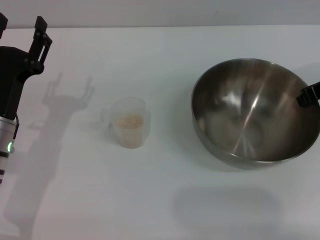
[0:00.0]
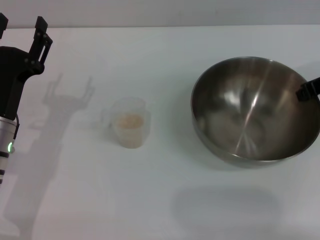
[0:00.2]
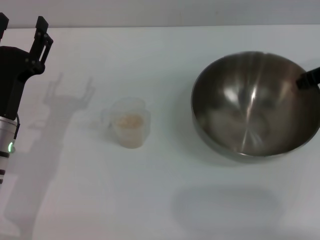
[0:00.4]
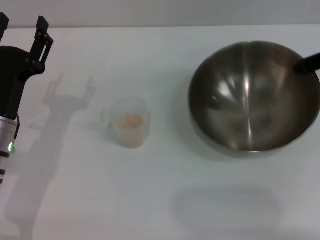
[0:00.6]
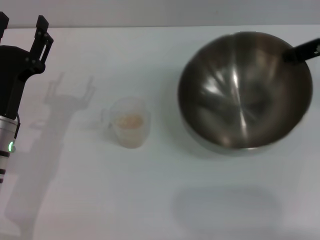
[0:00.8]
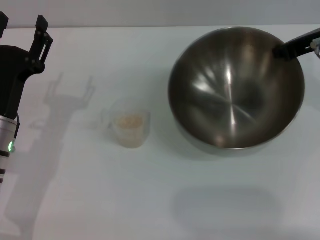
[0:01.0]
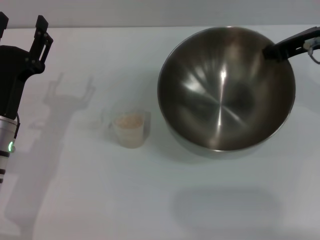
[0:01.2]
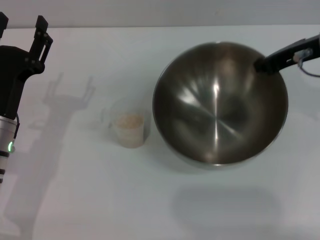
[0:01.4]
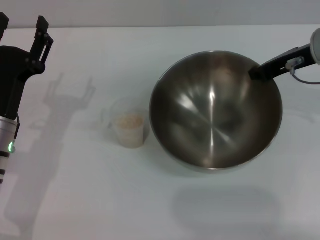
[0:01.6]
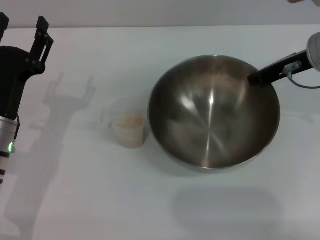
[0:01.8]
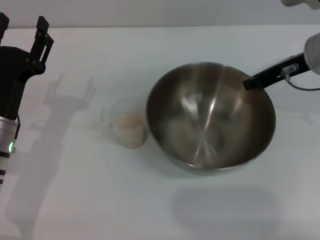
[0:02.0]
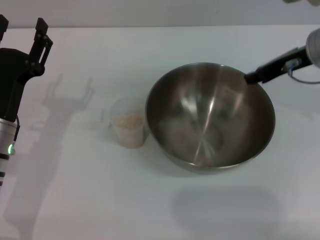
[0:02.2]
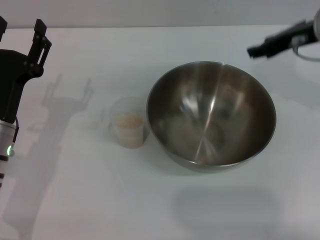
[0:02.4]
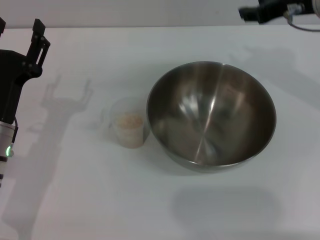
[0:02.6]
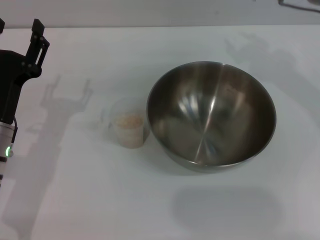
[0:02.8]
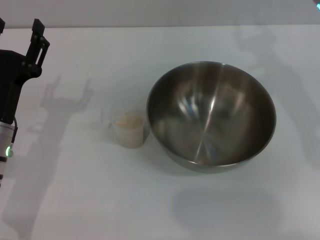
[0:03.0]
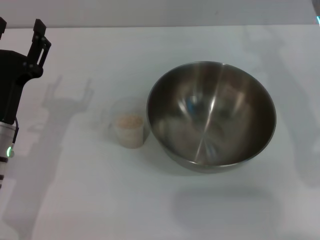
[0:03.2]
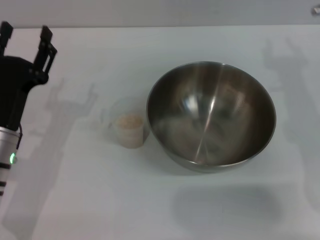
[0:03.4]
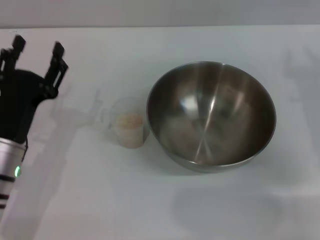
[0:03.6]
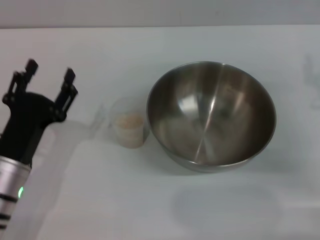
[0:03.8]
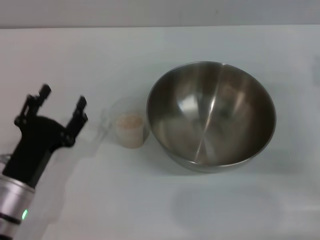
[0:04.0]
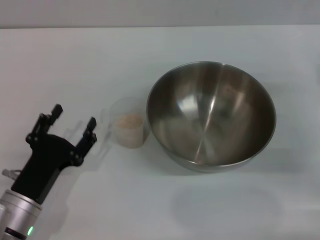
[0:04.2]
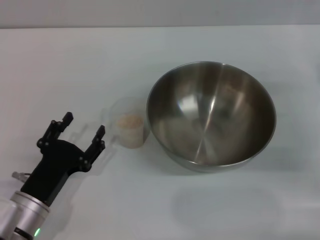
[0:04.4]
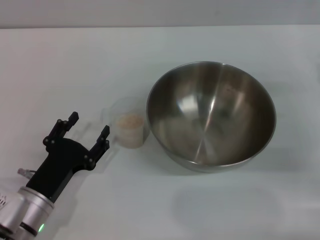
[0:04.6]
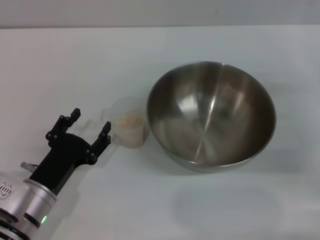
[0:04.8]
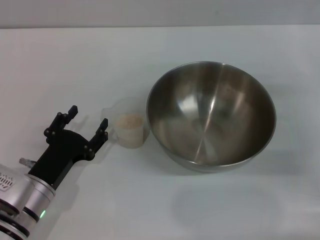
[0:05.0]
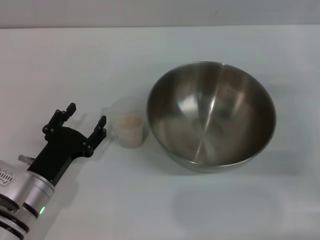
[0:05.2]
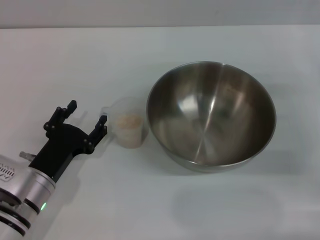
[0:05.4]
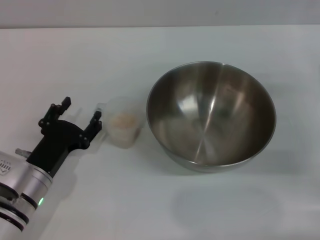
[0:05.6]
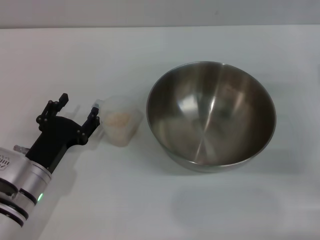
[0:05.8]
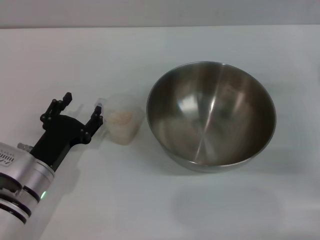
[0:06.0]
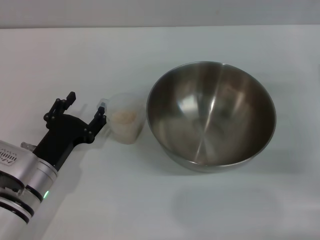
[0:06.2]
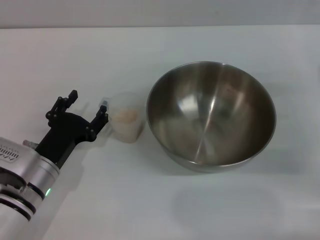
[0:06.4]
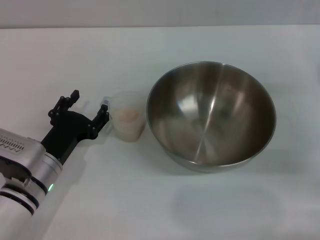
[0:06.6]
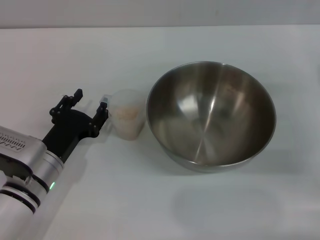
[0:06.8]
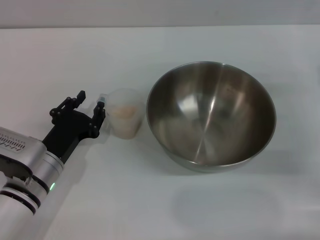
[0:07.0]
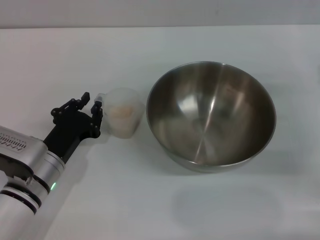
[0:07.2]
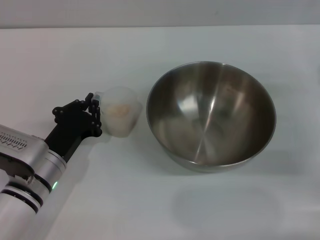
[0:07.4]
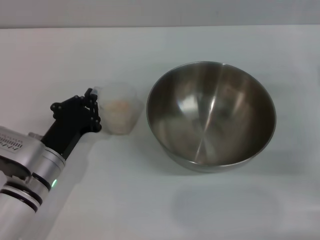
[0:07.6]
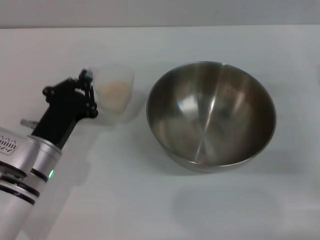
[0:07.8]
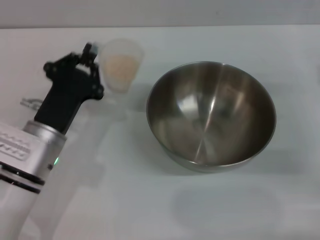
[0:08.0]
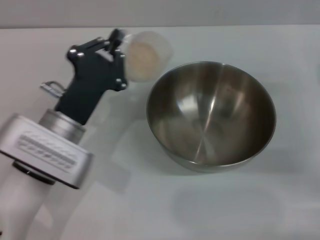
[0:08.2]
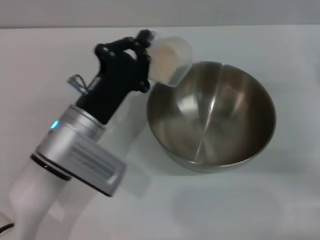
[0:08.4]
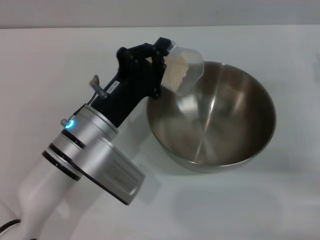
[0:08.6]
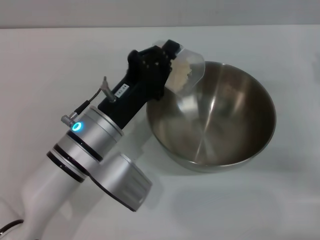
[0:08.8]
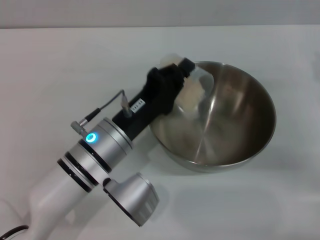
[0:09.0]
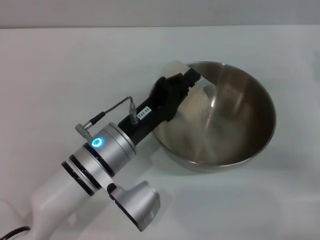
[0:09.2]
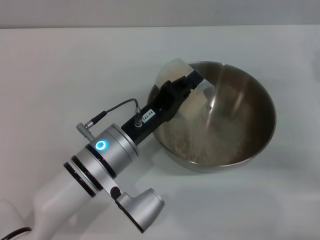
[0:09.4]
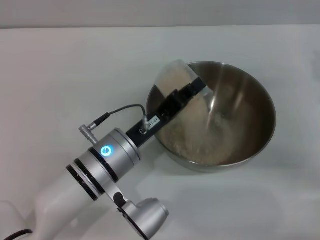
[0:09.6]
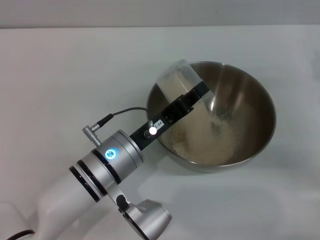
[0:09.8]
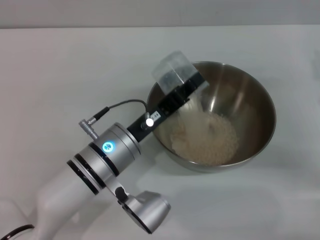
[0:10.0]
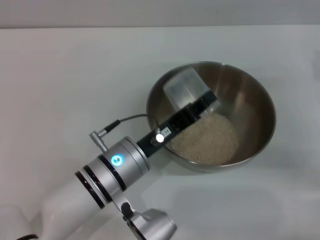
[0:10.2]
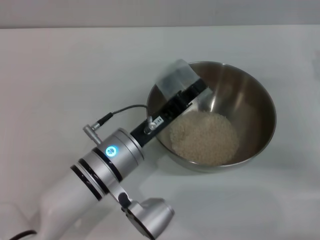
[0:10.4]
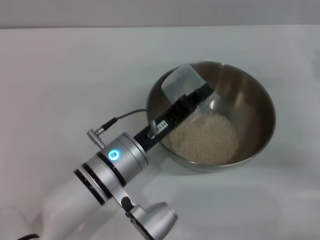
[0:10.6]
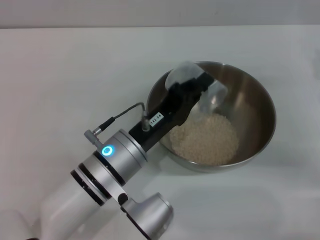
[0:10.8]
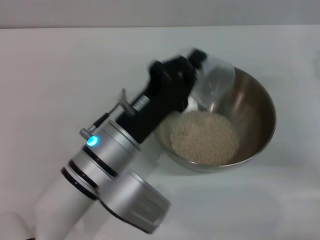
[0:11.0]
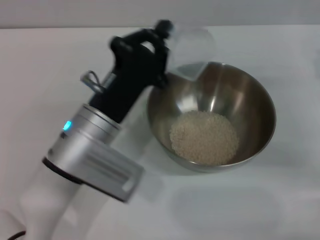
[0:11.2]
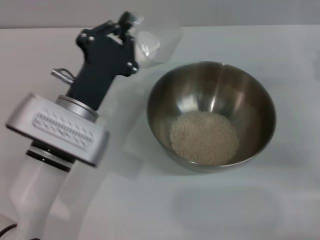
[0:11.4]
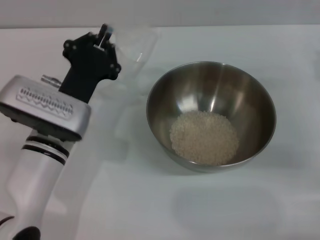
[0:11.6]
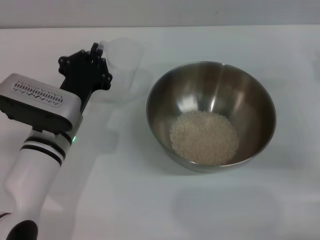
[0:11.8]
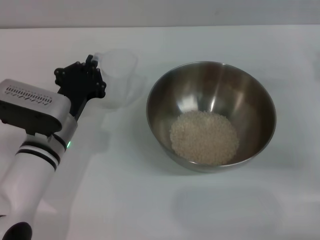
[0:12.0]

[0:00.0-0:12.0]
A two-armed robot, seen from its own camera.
Task of the whole recording: Place the bowl in the middle of the table with one hand and pour the rice from the grain cup into it with the other hand.
Step, 0:01.4 to 0:02.6: Place the bowl in the center of view with the right gripper.
Step, 0:02.8 to 0:08.0: Pick up the cup with rice in it with the left gripper.
Step, 0:08.2 to 0:10.0: Pour the rice from the cup into the bowl with the left gripper.
0:00.0 to 0:01.6: The right gripper shifts roughly 5 cm to the left.
0:01.6 to 0:03.0: The right gripper opens.
0:03.0 to 0:04.4: The right gripper shifts approximately 20 cm to the right, downward and backward, while the left gripper moves backward and downward, approximately 10 cm.
0:04.4 to 0:06.0: The left gripper shifts about 5 cm forward.
0:06.0 to 0:07.6: The left gripper closes its fingers.
0:07.6 to 0:09.0: The left gripper goes approximately 10 cm to the right and upward.
0:10.4 to 0:12.0: The left gripper travels to the left by roughly 10 cm.

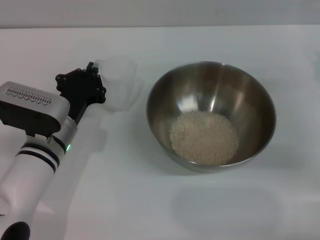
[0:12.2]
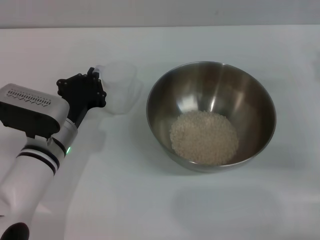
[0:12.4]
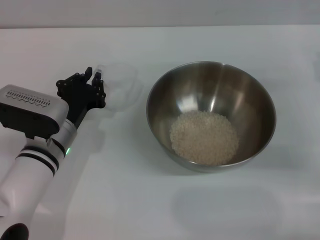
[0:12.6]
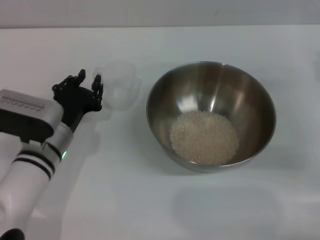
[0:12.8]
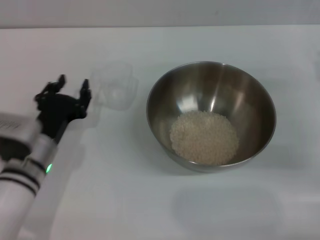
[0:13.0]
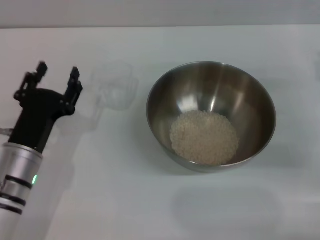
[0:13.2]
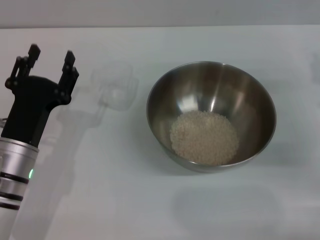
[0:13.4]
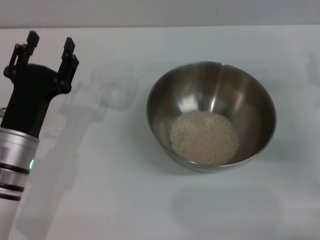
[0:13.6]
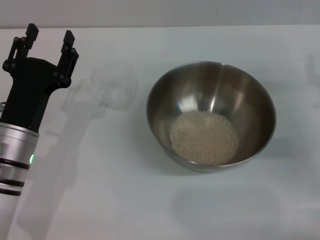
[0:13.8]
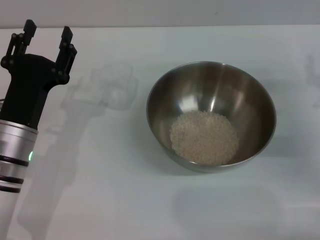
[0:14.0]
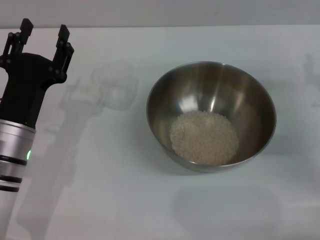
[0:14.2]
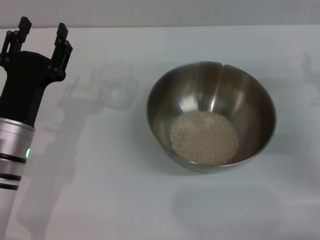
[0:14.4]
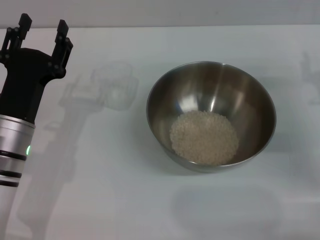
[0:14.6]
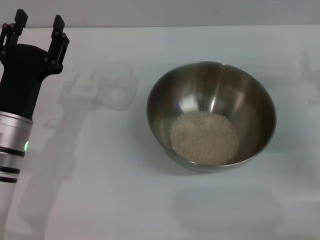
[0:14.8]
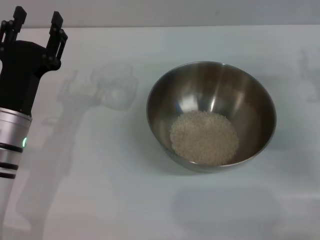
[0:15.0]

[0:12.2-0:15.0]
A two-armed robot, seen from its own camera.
Task of the whole recording: Place the bowl in the middle of the table with one hand and pour the rice from the grain cup into it with the other hand.
0:12.2 to 0:13.6: The left gripper shifts approximately 5 cm backward, and opens its fingers.
0:13.6 to 0:15.0: The grippers move only a little.
